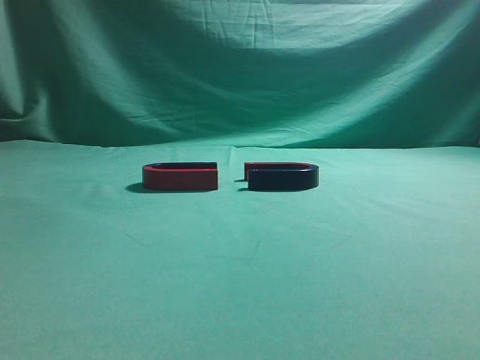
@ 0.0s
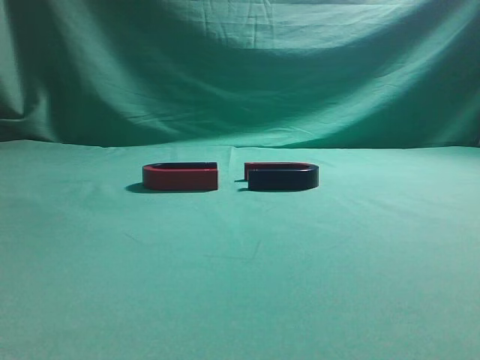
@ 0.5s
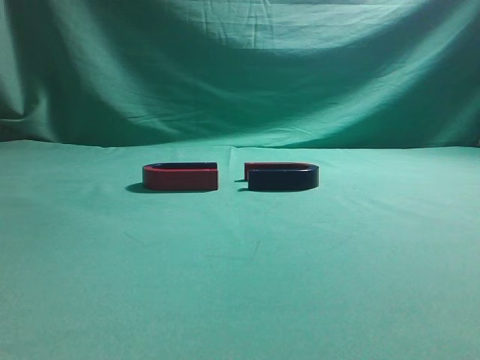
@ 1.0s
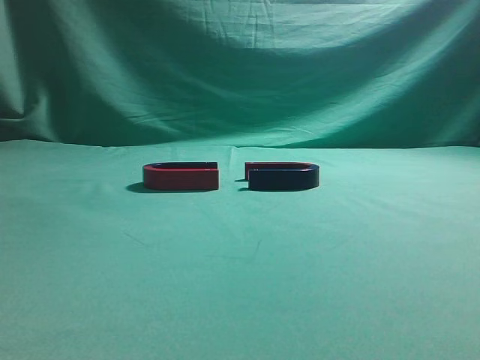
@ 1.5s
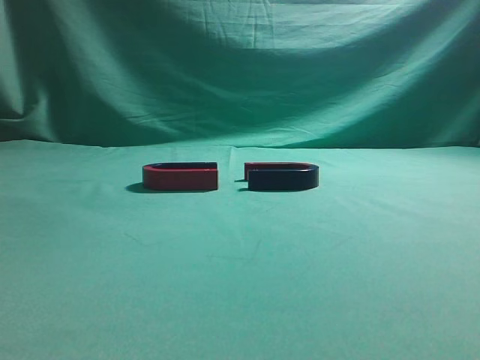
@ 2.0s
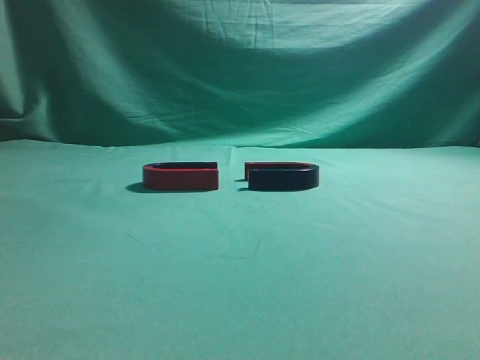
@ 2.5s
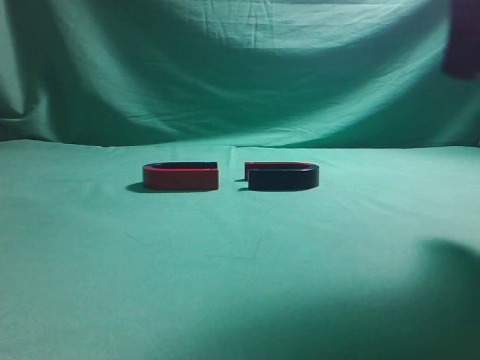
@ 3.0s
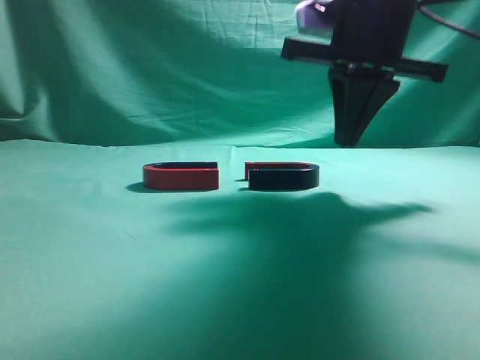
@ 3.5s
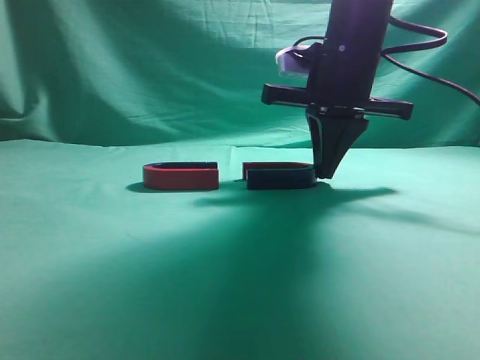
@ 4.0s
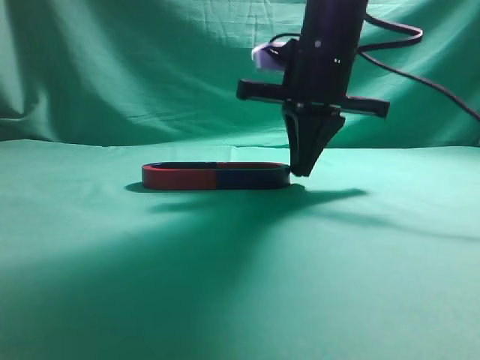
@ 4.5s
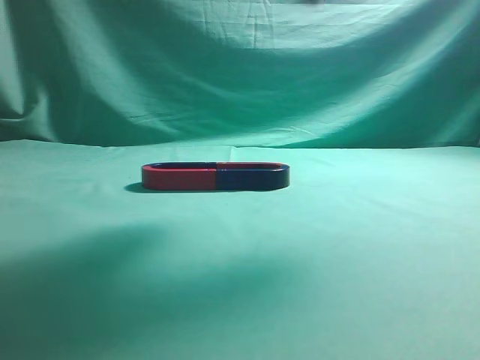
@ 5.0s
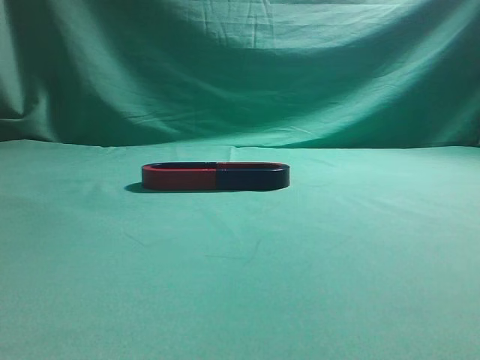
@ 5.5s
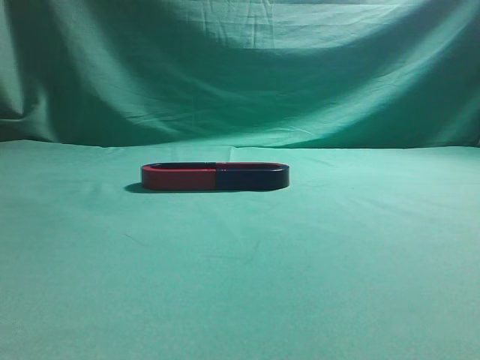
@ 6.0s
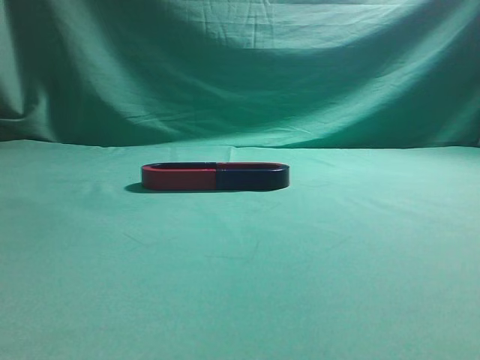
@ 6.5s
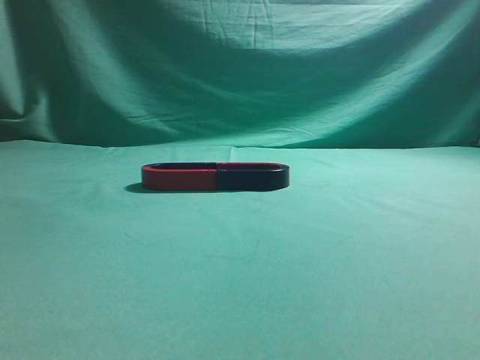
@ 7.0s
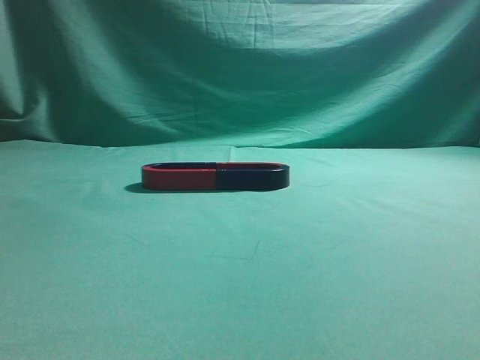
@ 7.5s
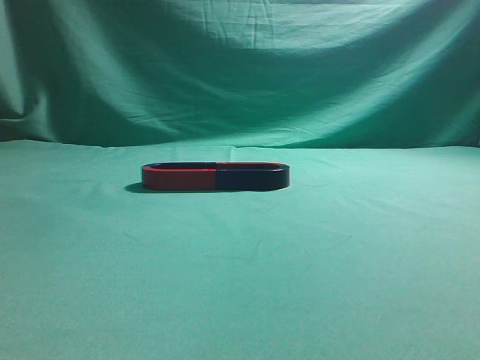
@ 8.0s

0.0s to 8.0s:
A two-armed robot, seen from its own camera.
Task of the whole recording: push the magnet on the table from its original position to another position.
Step, 0.0s to 4.5s: Push the magnet on the right to connect the magnet on the left.
2.0s to 4.0s: The right gripper shifts some 35 cm forward and to the left.
4.0s to 6.0s: The right gripper goes approximately 40 cm backward and upward.
